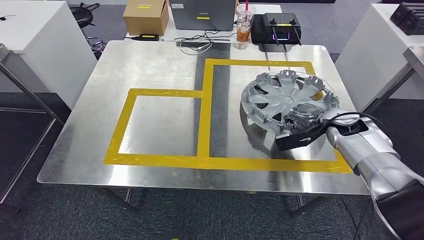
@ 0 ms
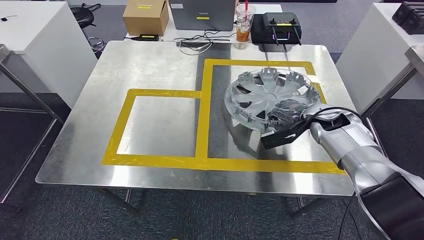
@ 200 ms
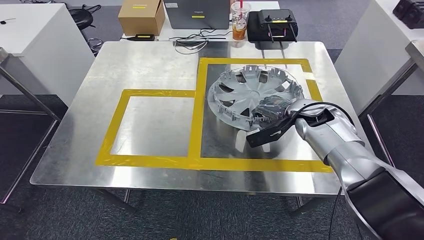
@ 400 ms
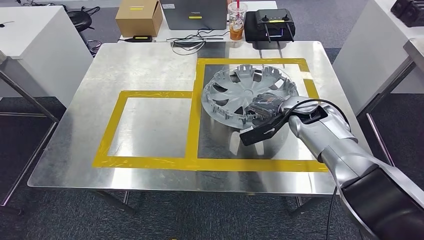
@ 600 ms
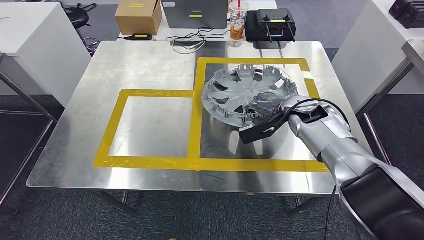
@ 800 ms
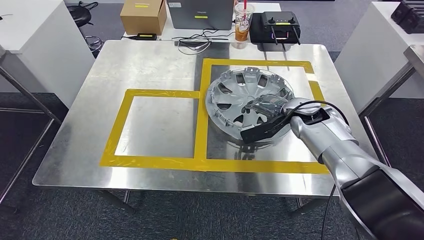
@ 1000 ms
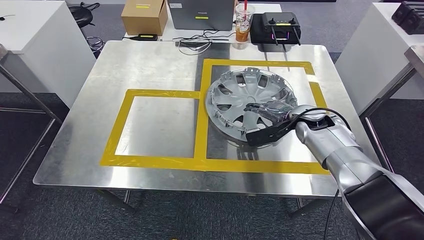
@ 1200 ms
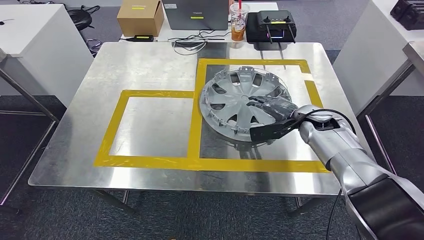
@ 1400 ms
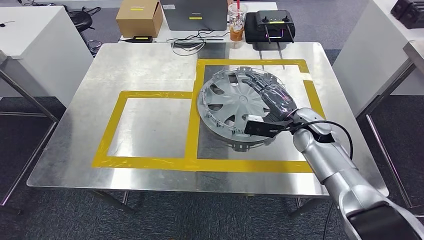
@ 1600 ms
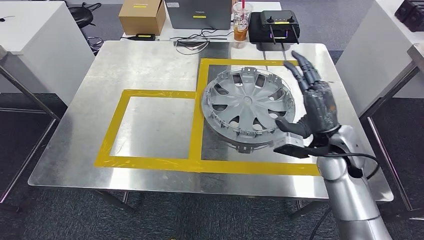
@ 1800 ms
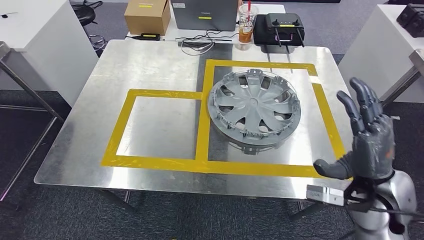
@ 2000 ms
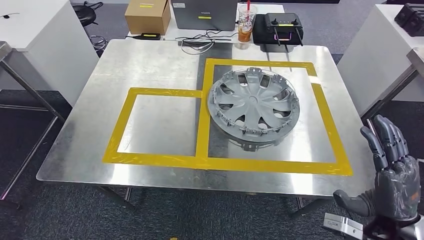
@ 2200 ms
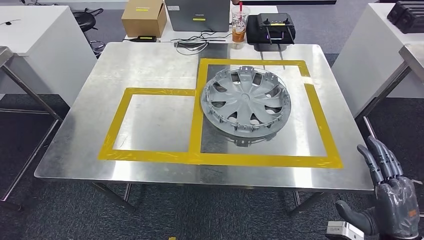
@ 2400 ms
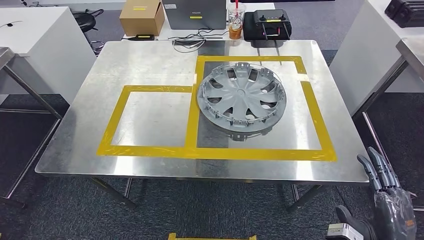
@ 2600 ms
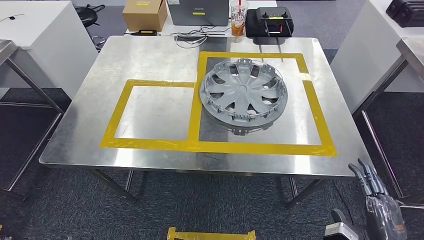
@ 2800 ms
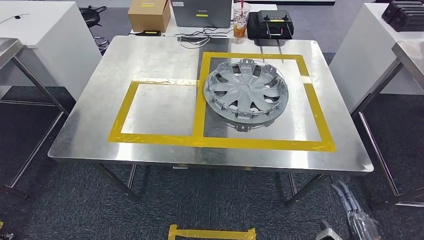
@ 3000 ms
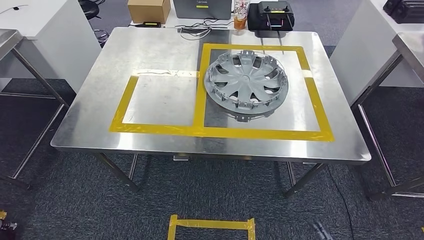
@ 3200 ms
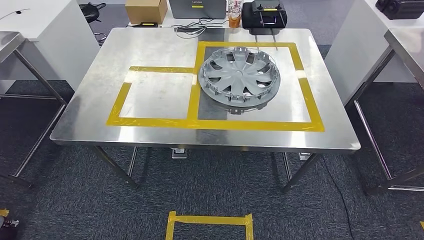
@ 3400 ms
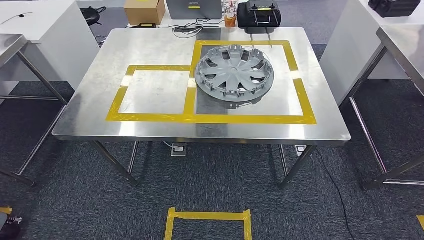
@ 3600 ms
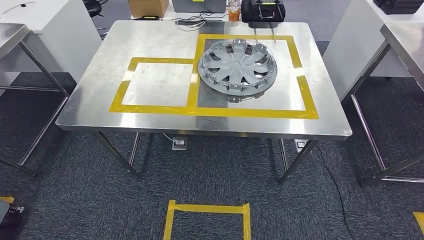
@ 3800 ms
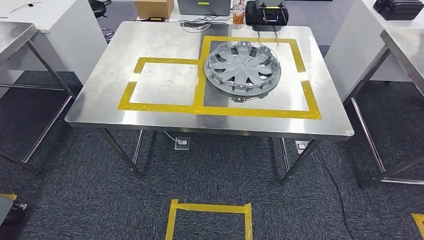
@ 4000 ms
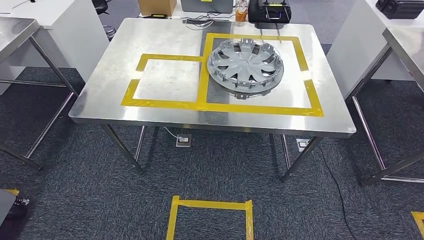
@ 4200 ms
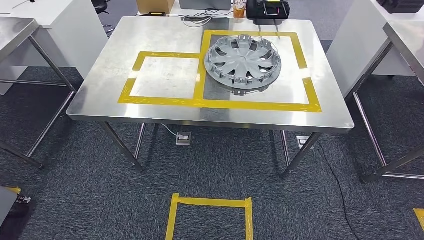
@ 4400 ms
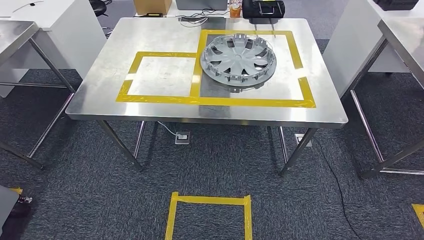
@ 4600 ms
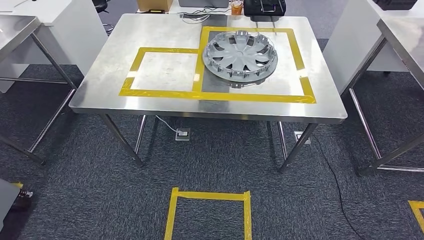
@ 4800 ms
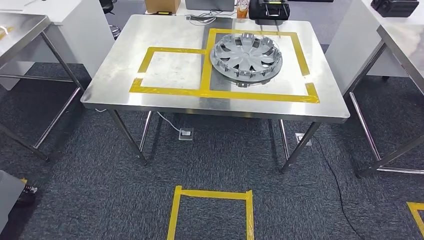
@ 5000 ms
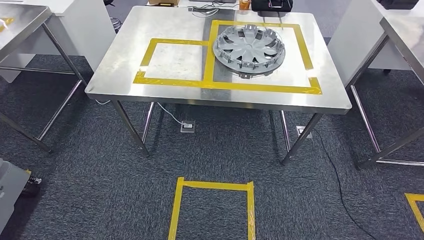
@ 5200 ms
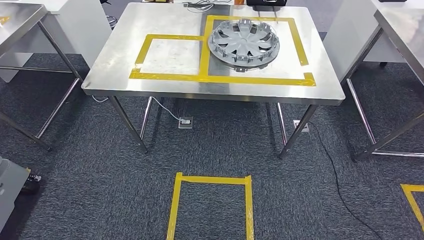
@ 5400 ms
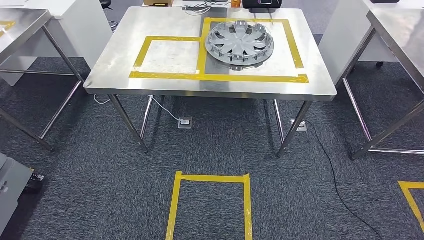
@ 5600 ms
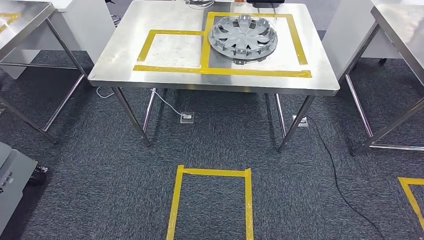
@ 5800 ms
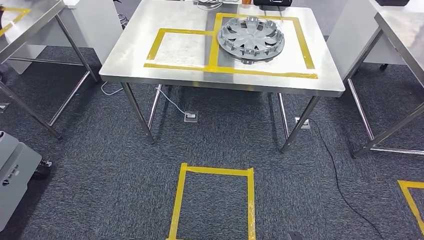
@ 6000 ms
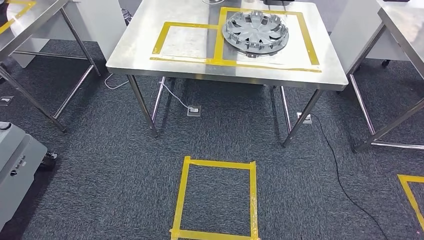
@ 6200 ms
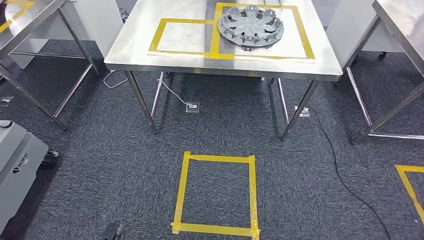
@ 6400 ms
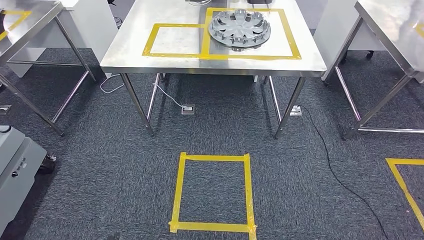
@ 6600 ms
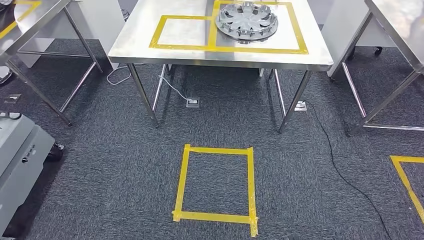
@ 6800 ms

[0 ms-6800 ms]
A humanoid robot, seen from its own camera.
Step, 0 ms to 2200 ms: Insert the small parts into the corresponding holes on the workbench.
Step, 2400 ms to 6600 ms: Move to the initial position at the workbench.
